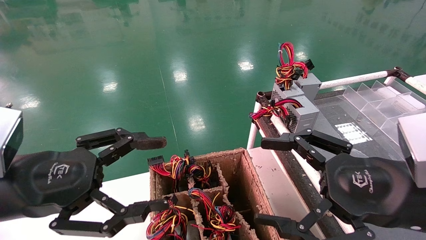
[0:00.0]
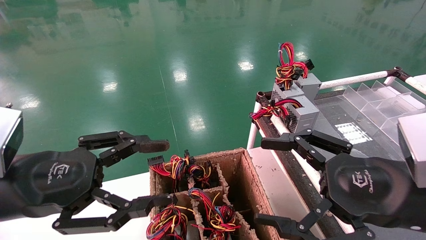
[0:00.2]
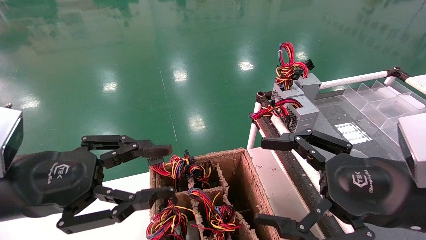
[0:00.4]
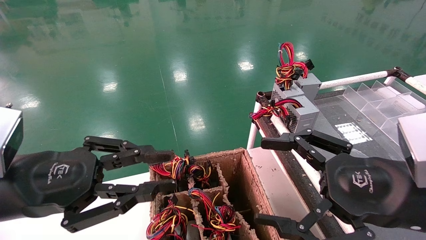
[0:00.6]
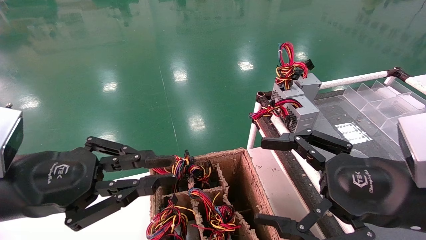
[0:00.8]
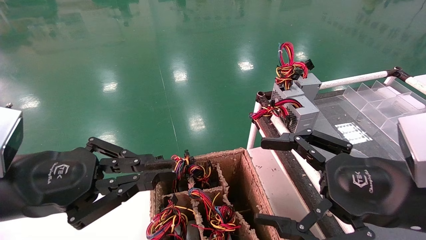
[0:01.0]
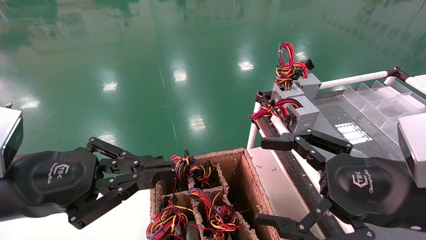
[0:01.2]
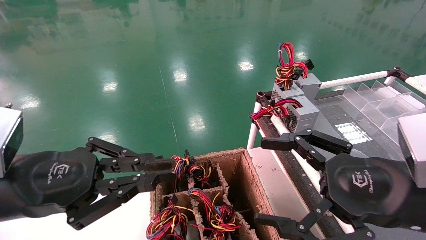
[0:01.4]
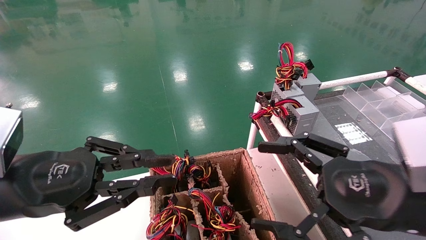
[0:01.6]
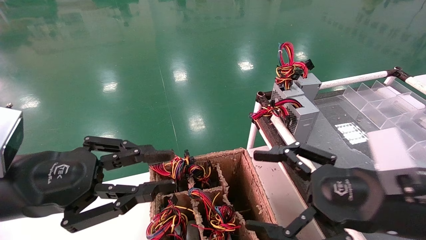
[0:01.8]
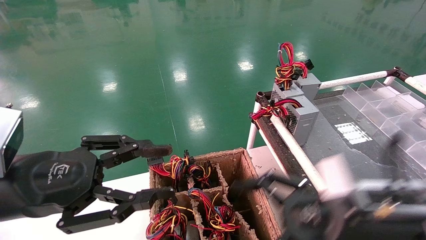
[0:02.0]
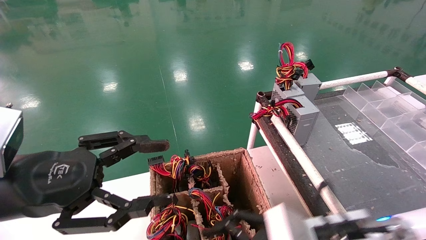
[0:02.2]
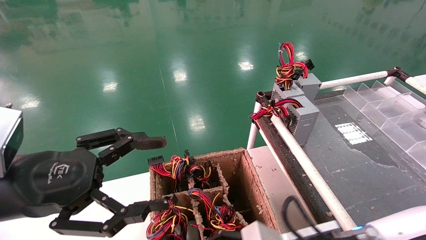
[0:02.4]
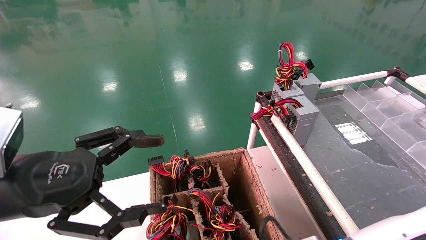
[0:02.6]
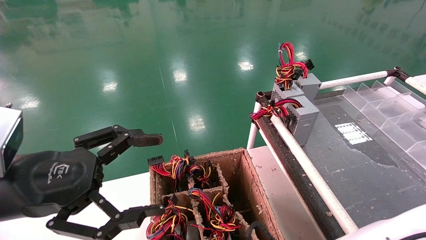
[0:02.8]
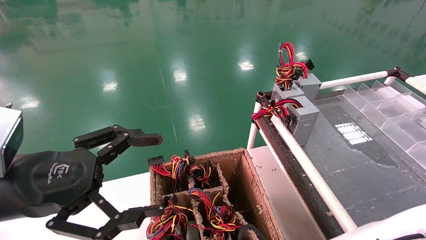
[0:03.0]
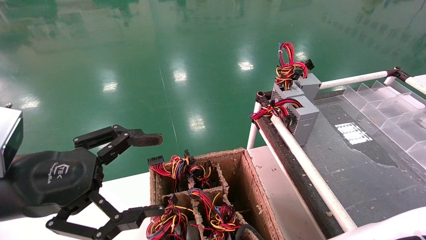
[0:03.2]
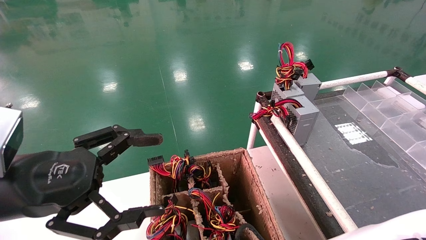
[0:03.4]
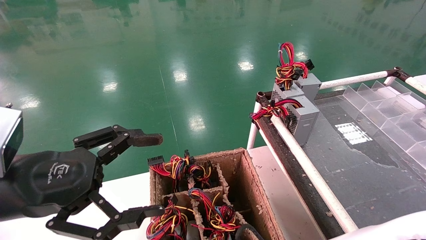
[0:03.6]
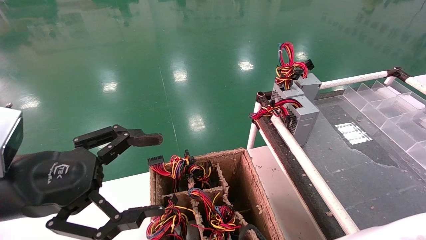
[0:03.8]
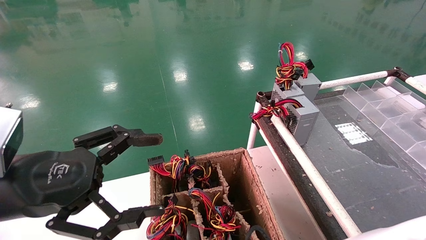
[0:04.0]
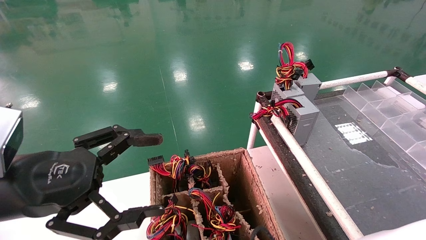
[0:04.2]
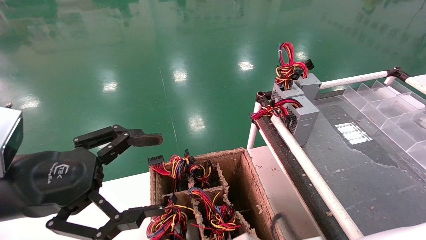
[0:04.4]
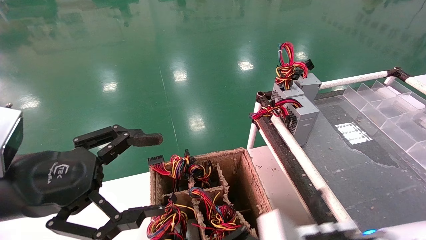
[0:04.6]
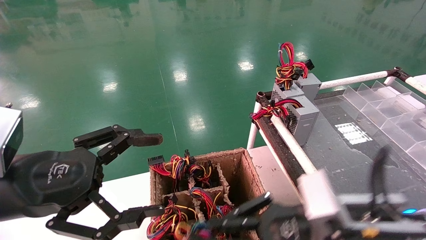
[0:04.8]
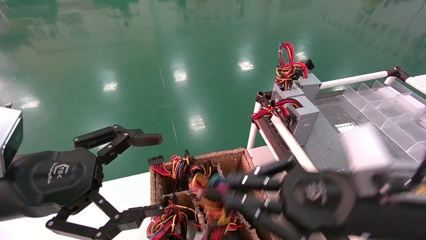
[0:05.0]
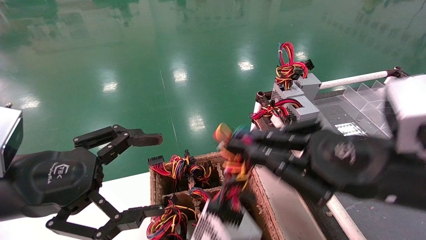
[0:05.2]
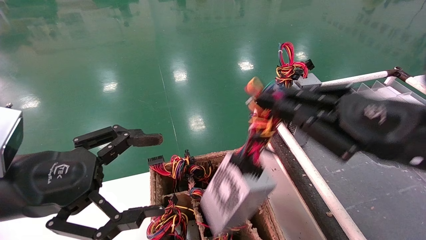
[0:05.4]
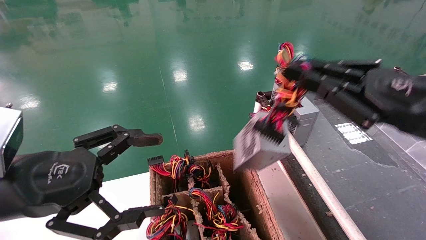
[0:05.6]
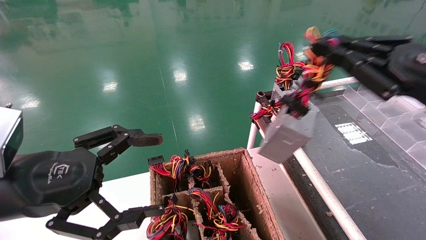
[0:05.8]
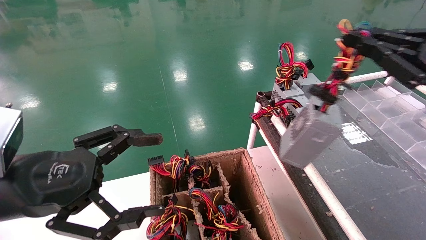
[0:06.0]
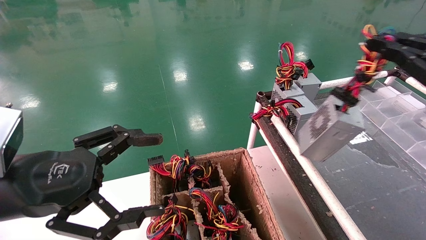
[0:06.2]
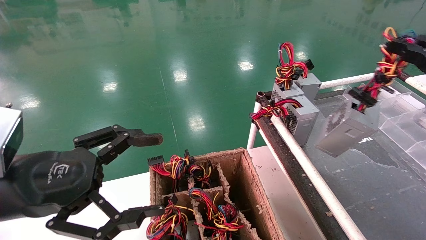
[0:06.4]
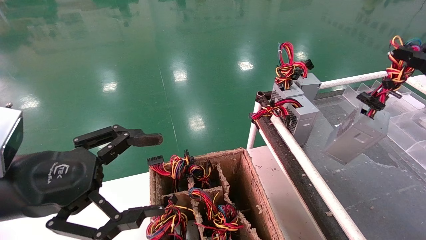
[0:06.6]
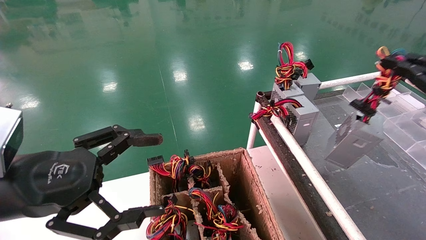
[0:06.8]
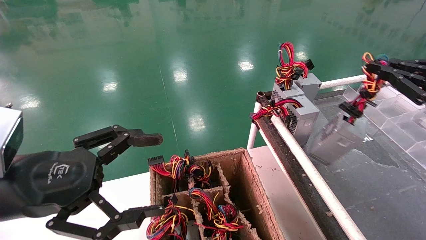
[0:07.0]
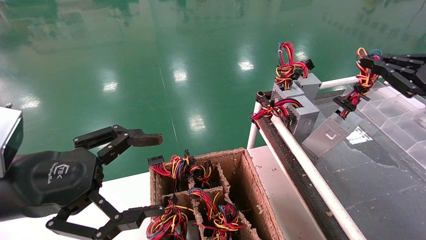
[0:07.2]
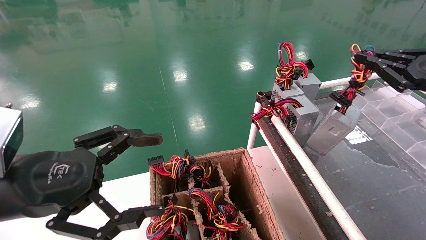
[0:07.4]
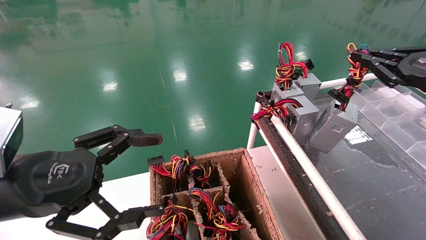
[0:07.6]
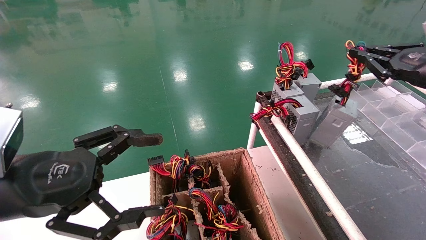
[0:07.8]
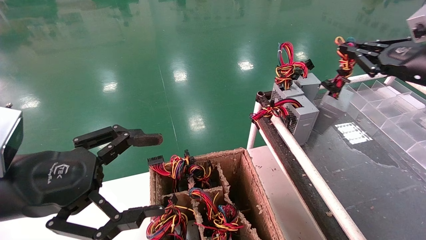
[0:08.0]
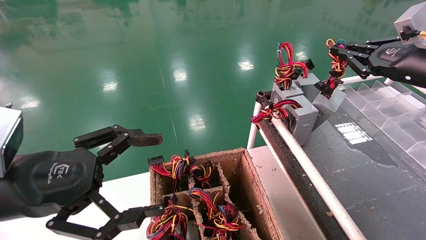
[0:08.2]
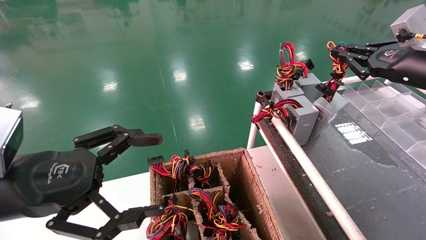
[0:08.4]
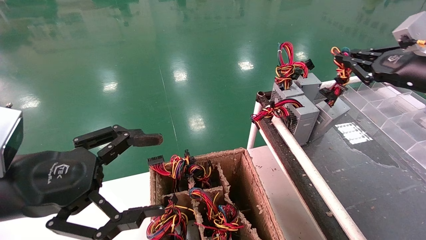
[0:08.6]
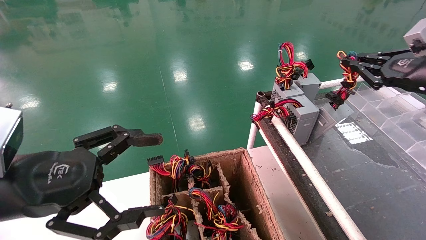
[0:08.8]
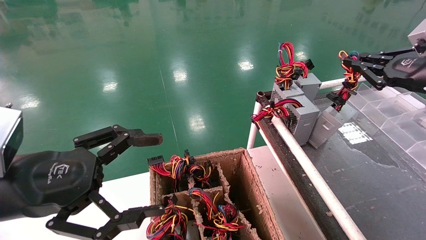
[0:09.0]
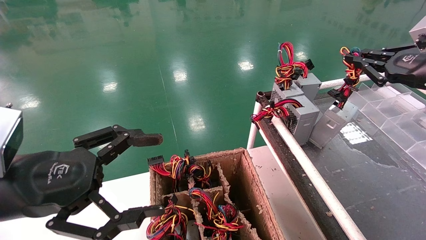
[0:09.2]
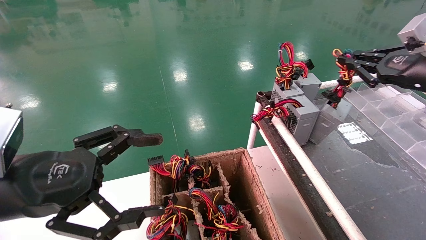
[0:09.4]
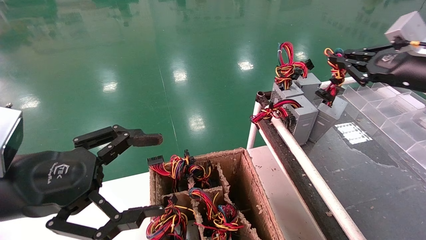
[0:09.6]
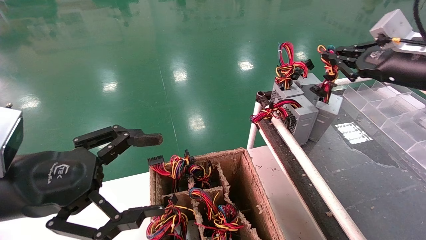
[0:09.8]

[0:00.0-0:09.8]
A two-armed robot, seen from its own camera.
Step, 0:01.2 to 0:04.2: Grab and lift the power supply from the large box.
0:00.0 to 0:01.4: The left gripper closes.
0:01.4 to 0:02.8: The left gripper opens its fingers. Meanwhile the right gripper travels downward and to the left by roughly 20 cm.
0:02.8 to 0:04.2: The right gripper closes.
0:04.2 to 0:05.6: The right gripper shifts roughly 30 cm upward and to the right.
0:05.6 to 0:07.0: The right gripper moves to the right, roughly 15 cm.
0:07.0 to 0:08.4: The right gripper goes approximately 10 cm forward.
0:08.4 to 0:09.8: The grippers make only small movements.

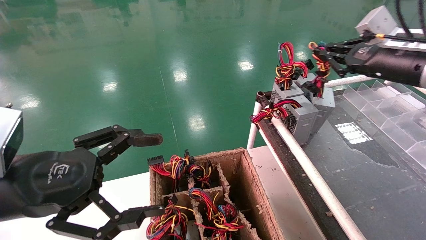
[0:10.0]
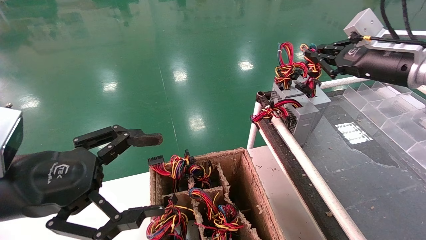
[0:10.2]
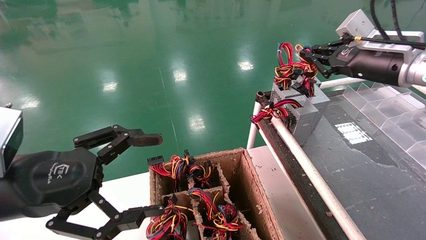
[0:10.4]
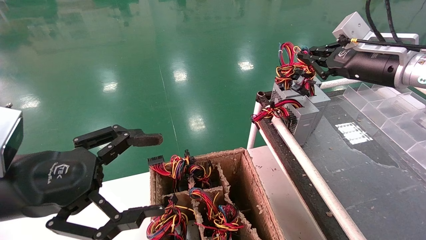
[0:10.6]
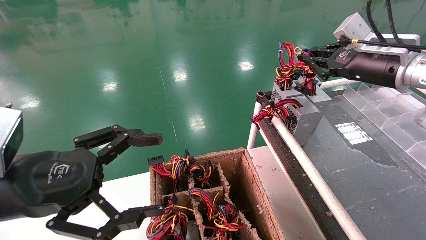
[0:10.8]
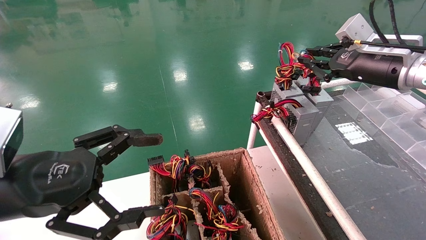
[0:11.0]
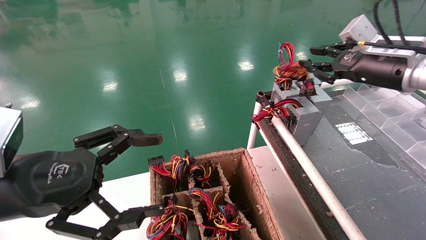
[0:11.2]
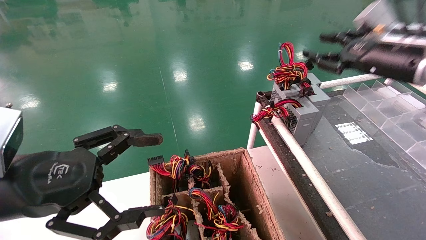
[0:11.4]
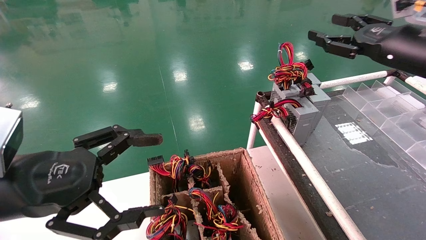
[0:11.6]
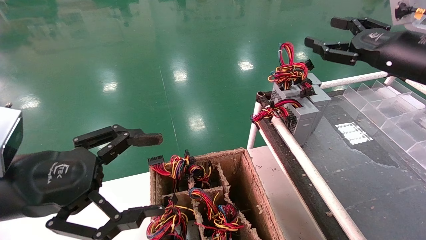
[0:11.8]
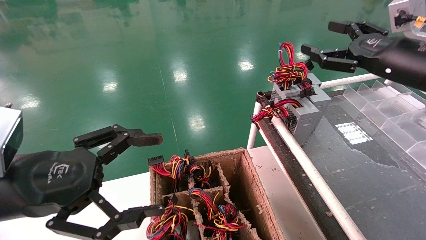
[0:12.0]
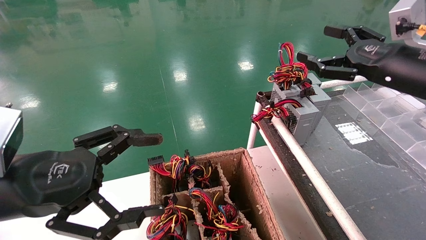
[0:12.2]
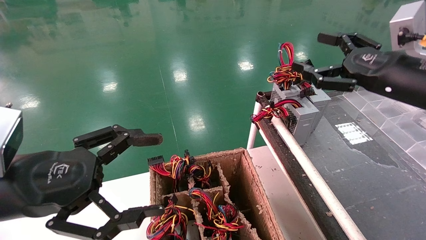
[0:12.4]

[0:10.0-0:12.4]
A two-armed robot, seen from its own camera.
0:10.0 to 0:11.2: The grippers make only small movements.
0:11.2 to 0:12.4: The right gripper is displaced backward by about 5 cm, and opens its fingers.
